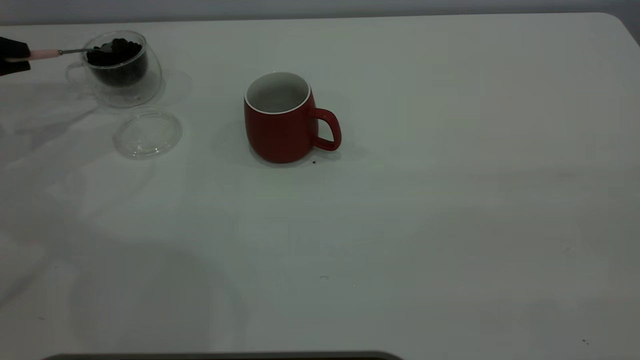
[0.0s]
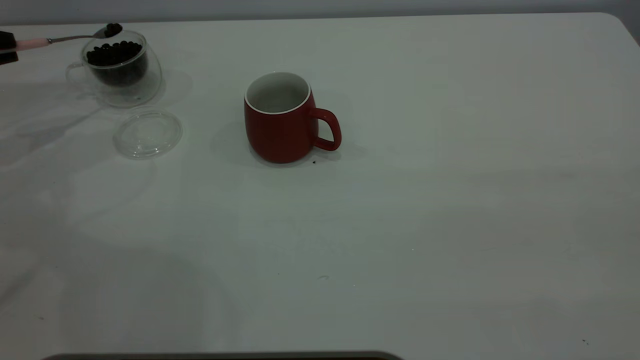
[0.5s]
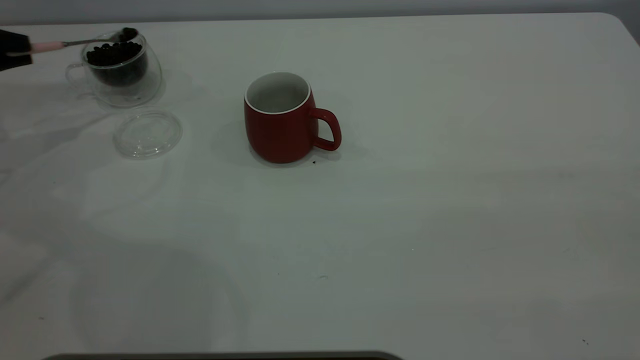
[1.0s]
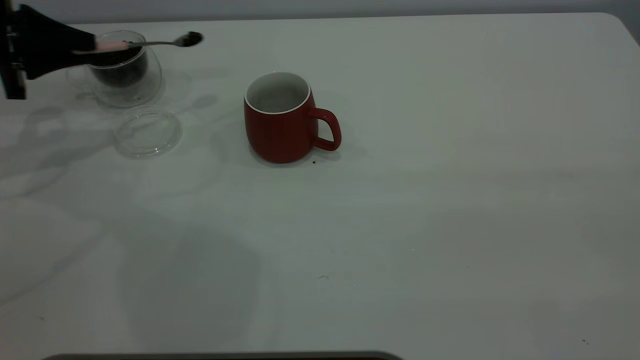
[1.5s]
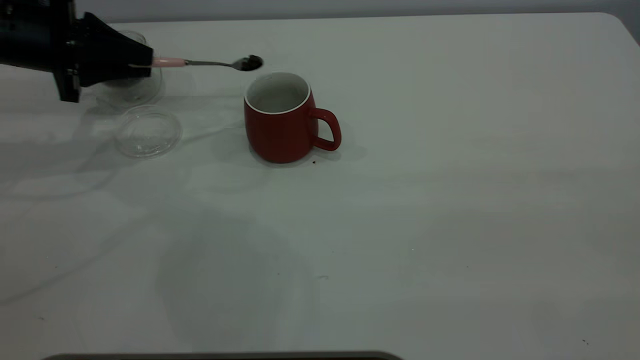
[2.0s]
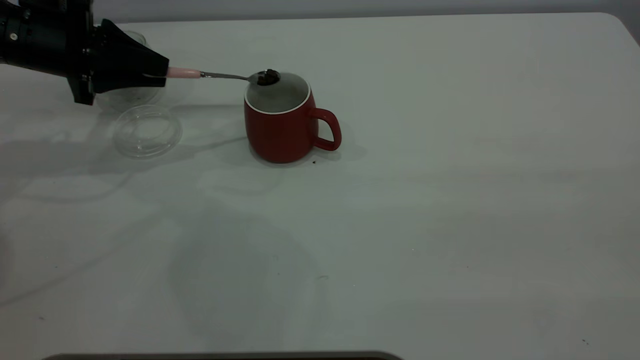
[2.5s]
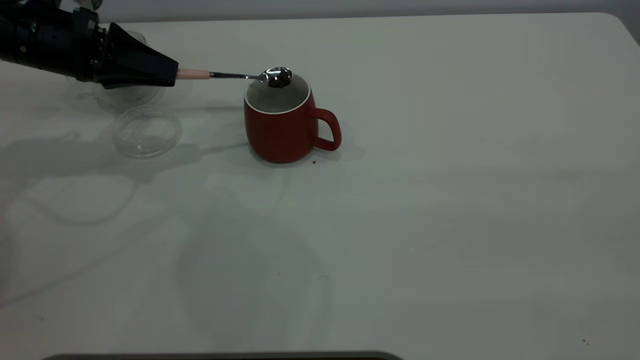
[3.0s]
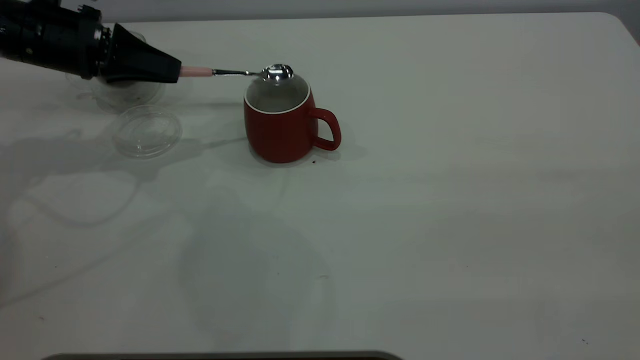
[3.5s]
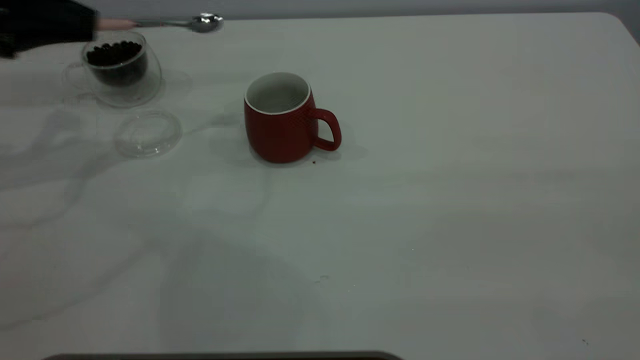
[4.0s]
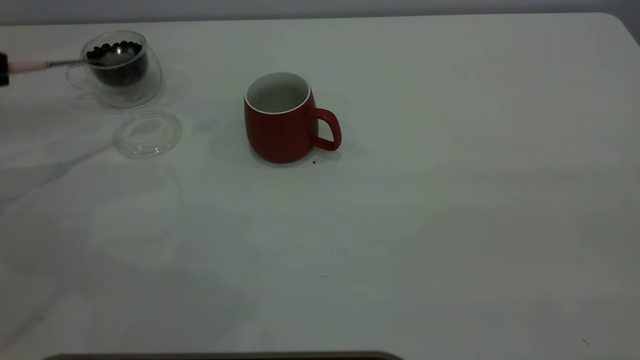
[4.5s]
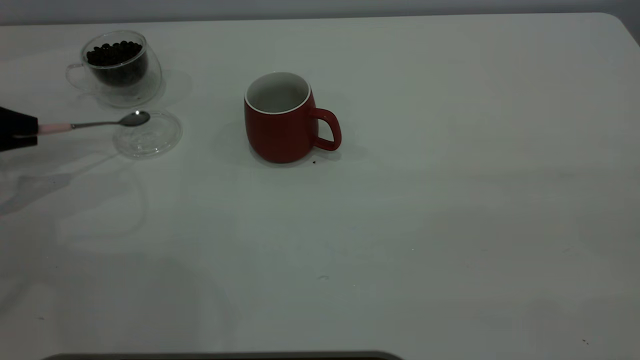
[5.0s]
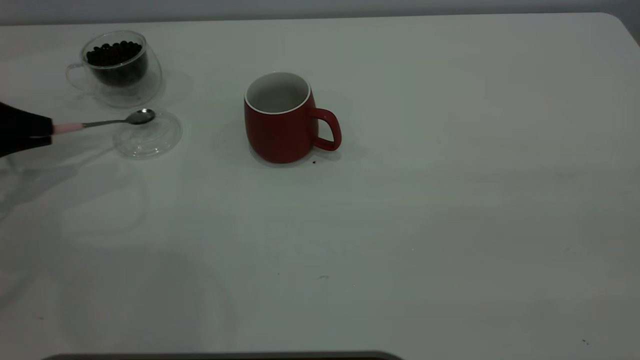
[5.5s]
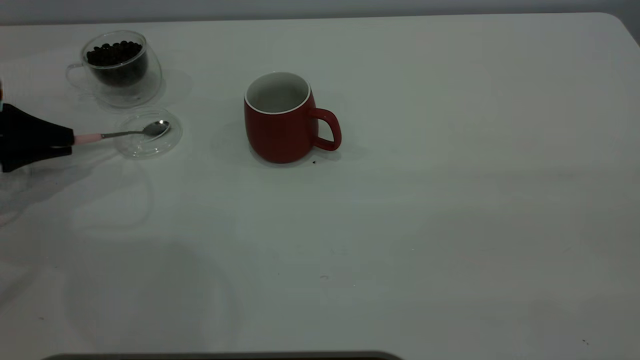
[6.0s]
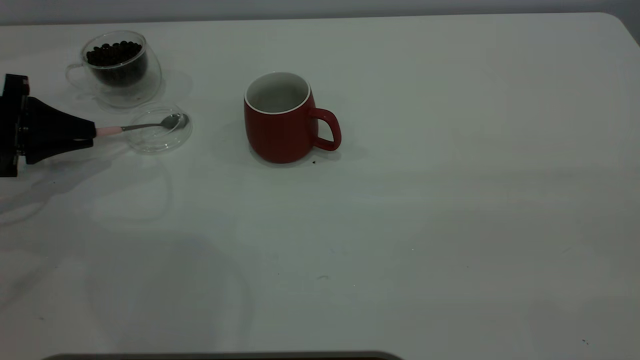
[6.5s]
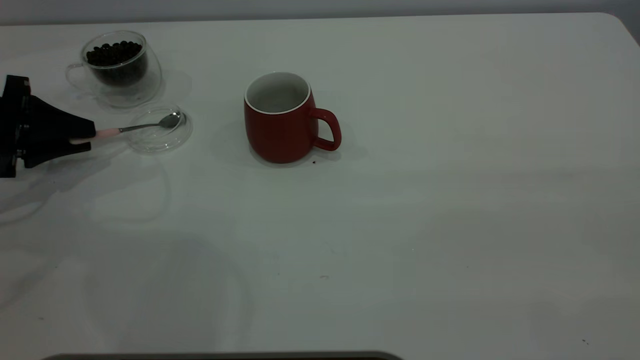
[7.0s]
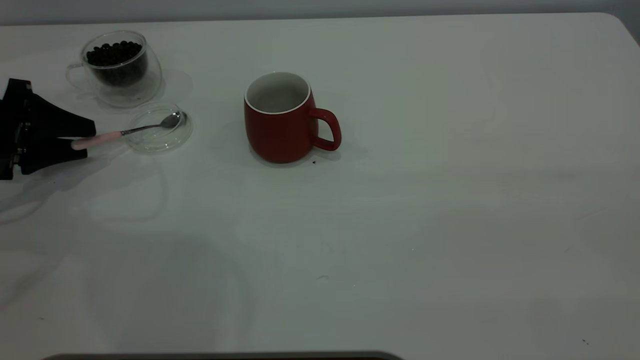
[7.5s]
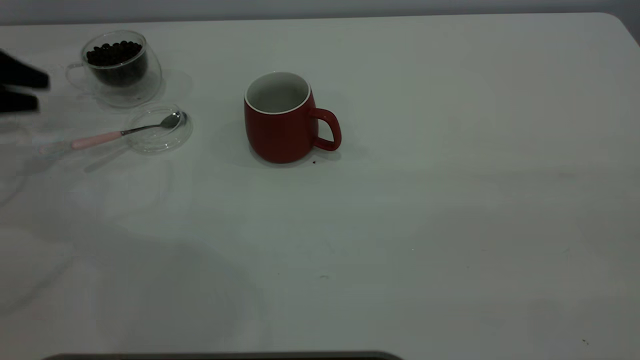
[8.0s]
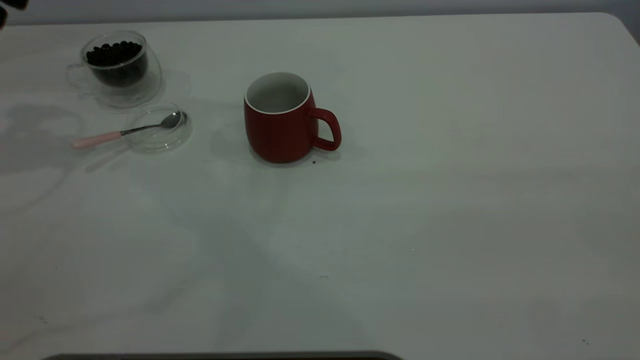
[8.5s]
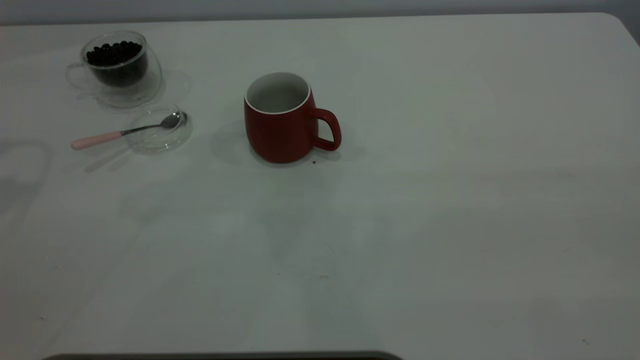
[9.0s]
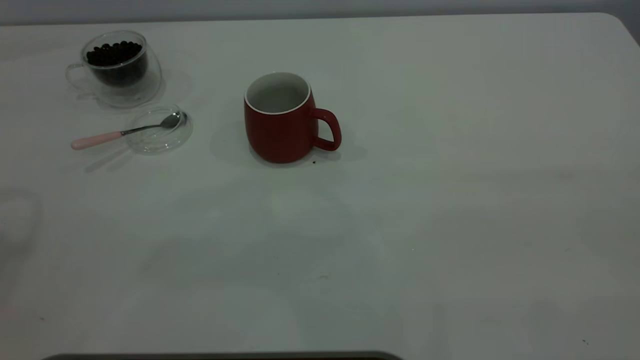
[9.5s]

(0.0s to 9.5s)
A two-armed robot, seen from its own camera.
Task of the whole recording: the right gripper place the red cup in the center of the table, the left gripper take the pink spoon from the cup lid and scoop out the coffee beans from the coffee cup and put them into the red cup, the left gripper put the spoon back into the cup lid.
Step, 0.0s - 3.5s: Scoop a spoonful of beans into the cup.
Step, 4.0s - 7.5s: Place the spoon back in its original place.
0.0s - 2.0s: The left gripper shifts roughly 15 cm to the right.
2.0s - 4.0s: The left gripper shifts some 5 cm upward.
4.0s - 5.5s: The left gripper moves downward and to the left, about 10 cm.
5.5s - 7.5s: The left gripper opens up.
7.5s - 9.5s: The left gripper shifts roughly 35 cm upward.

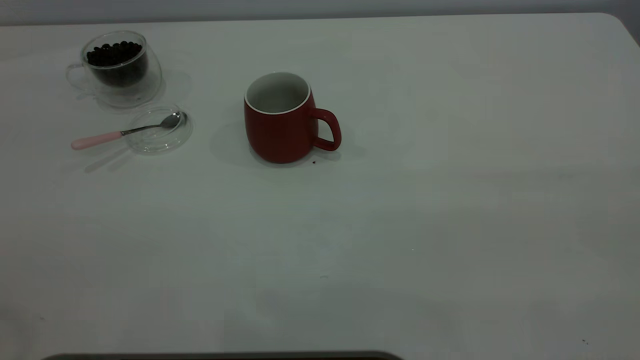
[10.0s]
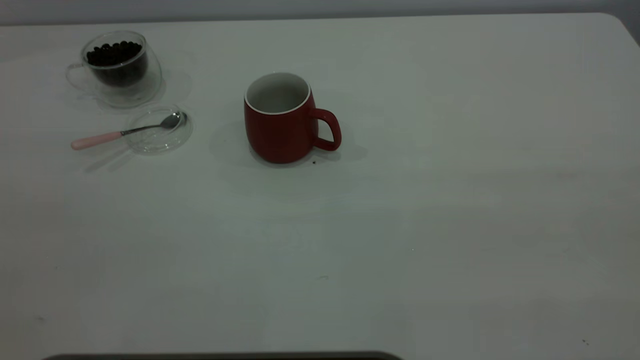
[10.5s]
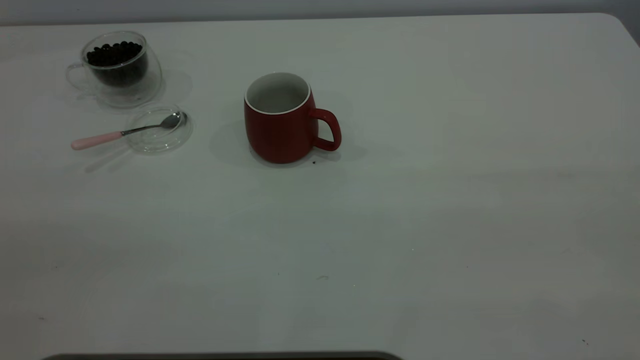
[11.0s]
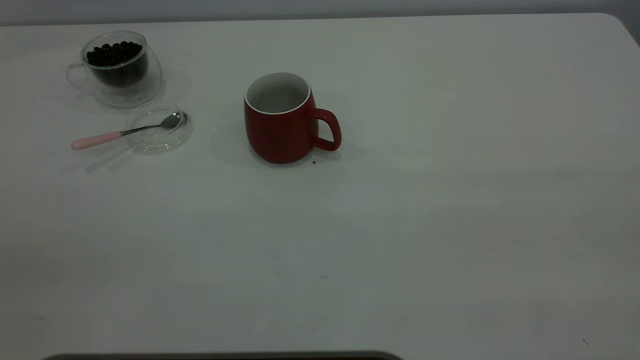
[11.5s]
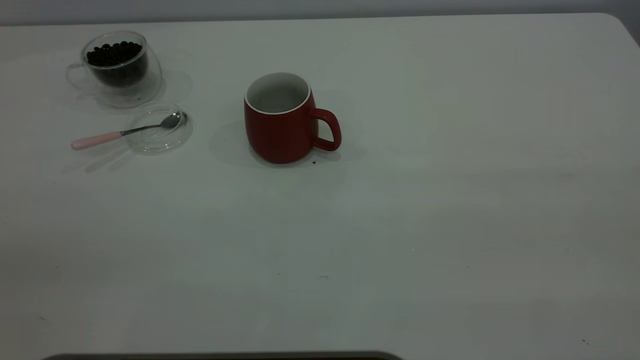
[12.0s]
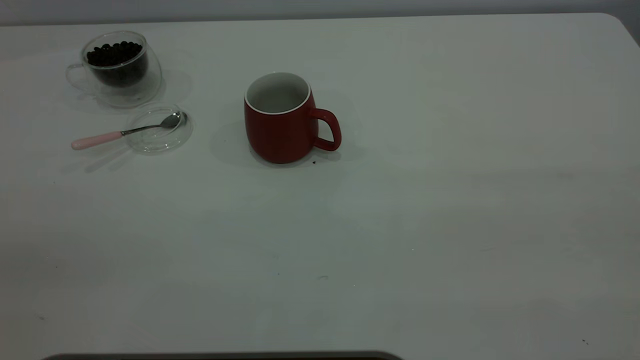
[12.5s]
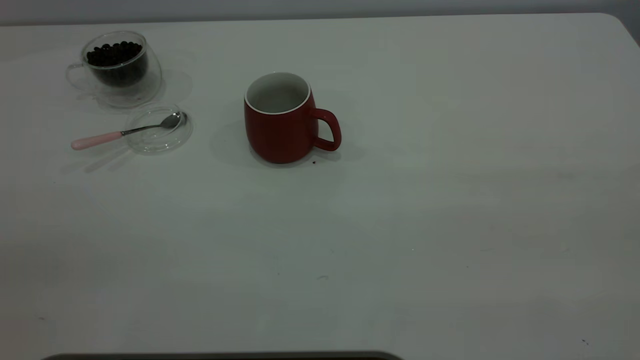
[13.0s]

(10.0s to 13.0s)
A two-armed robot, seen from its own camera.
Task of the whole recording: the right gripper place the red cup in the center of the table, the left gripper take the pink spoon from the cup lid and scoop out the coffee beans from the coffee cup and put them into the red cup, the left gripper put the spoon back into the cup lid.
11.5s - 13.0s: Neither gripper changes place.
